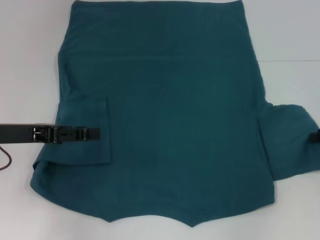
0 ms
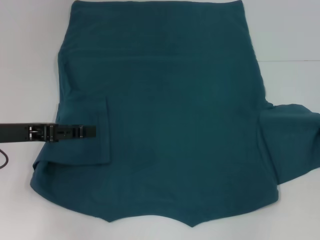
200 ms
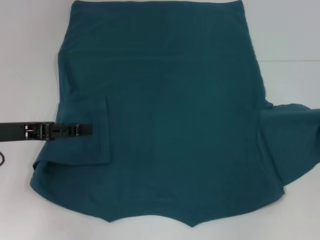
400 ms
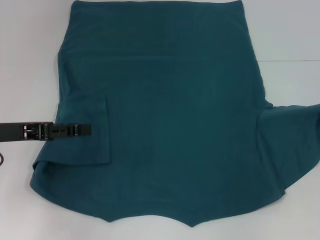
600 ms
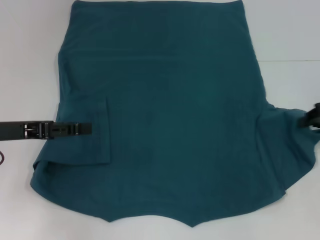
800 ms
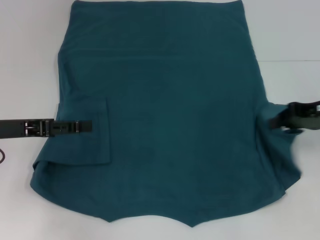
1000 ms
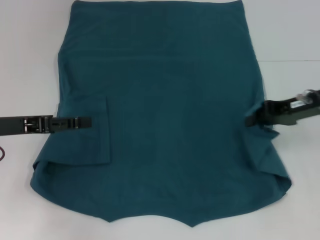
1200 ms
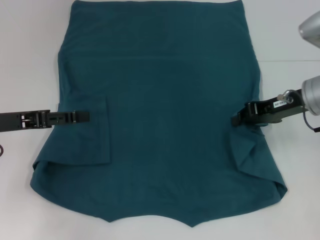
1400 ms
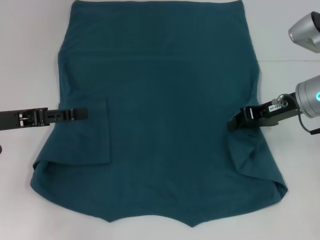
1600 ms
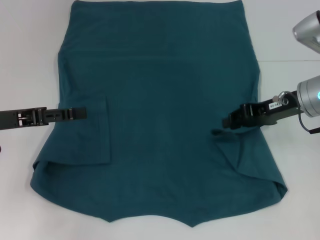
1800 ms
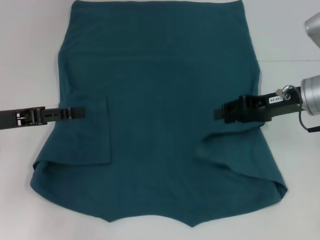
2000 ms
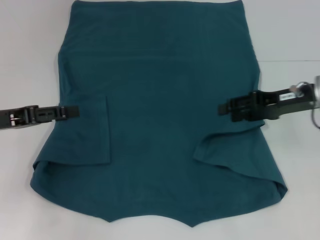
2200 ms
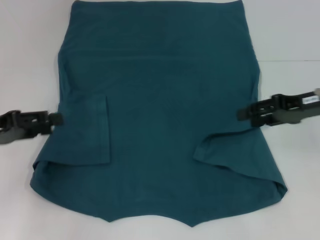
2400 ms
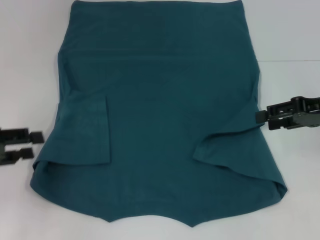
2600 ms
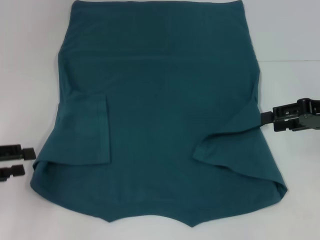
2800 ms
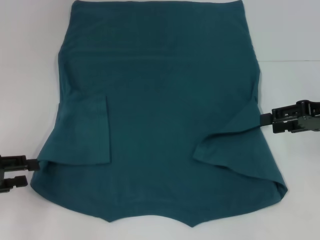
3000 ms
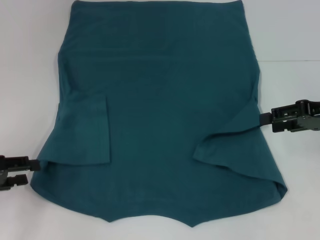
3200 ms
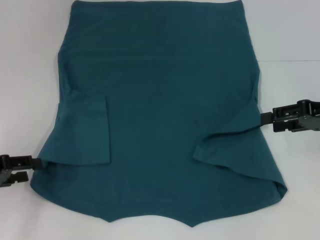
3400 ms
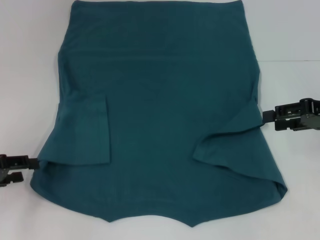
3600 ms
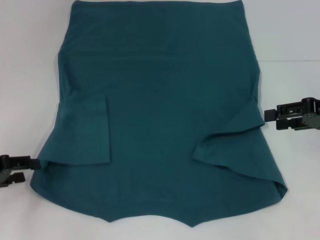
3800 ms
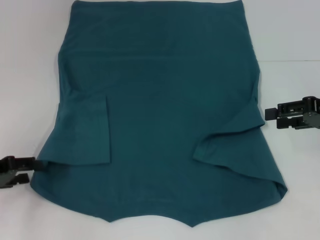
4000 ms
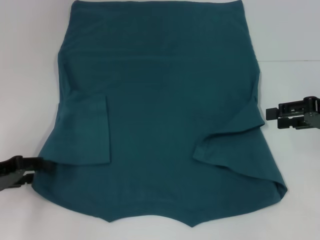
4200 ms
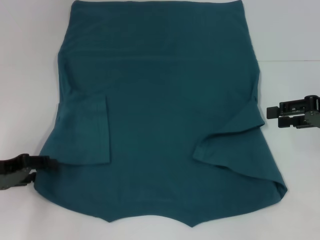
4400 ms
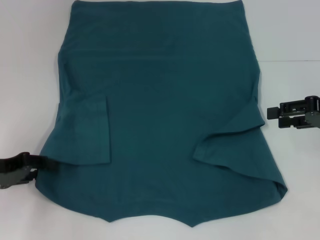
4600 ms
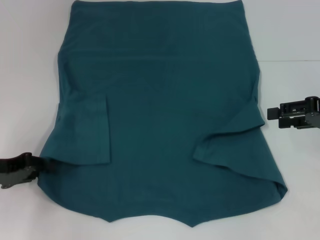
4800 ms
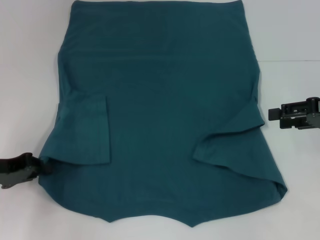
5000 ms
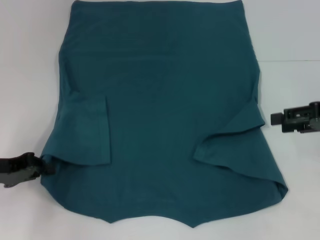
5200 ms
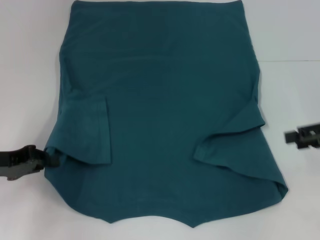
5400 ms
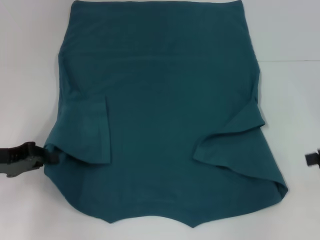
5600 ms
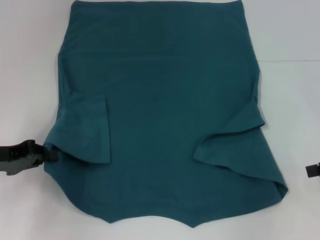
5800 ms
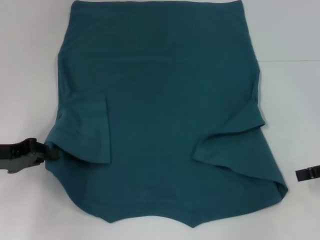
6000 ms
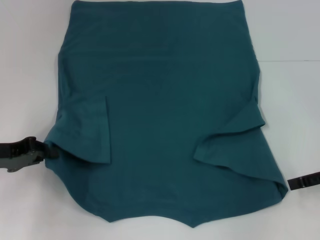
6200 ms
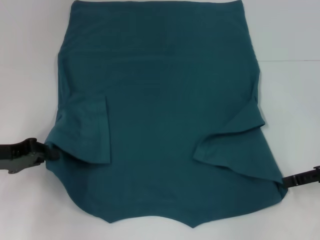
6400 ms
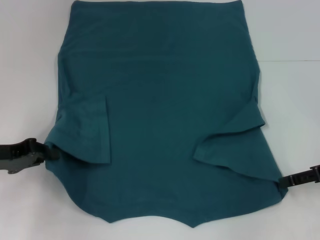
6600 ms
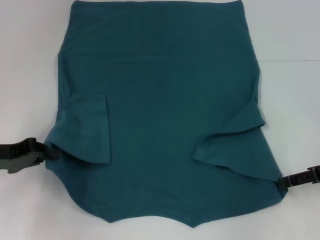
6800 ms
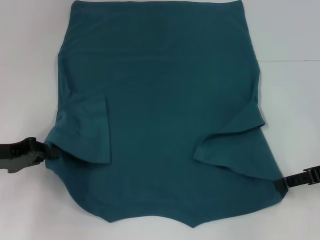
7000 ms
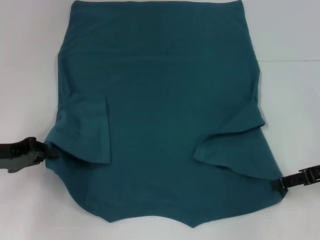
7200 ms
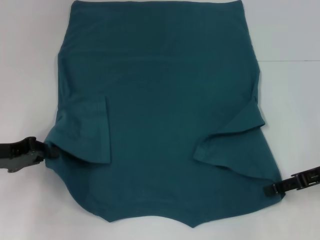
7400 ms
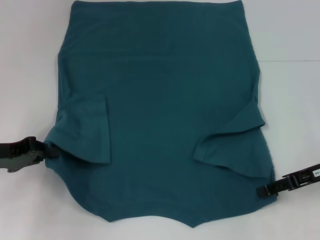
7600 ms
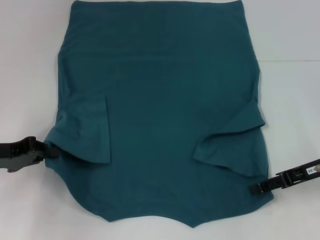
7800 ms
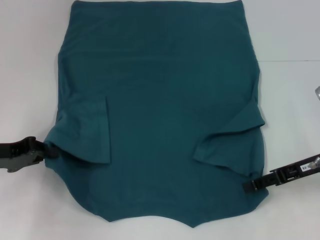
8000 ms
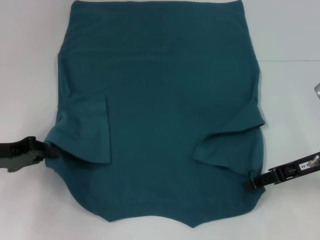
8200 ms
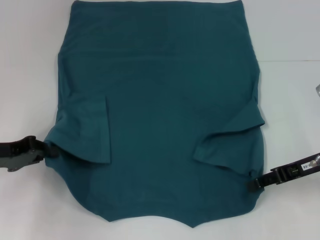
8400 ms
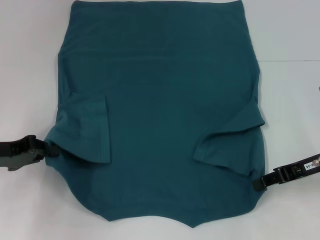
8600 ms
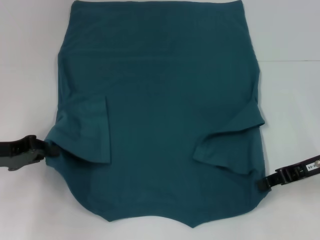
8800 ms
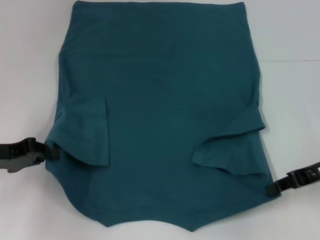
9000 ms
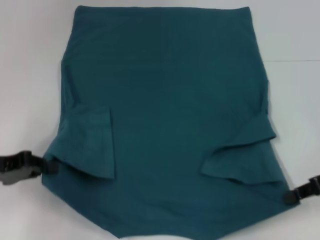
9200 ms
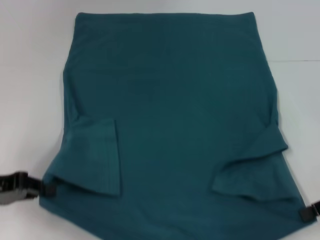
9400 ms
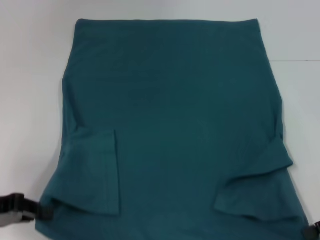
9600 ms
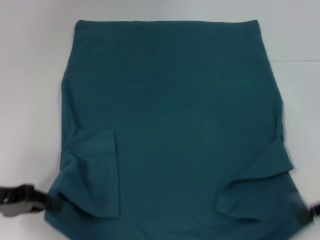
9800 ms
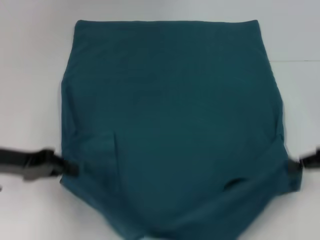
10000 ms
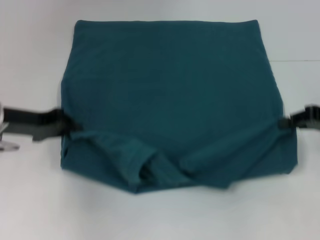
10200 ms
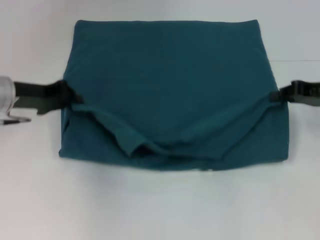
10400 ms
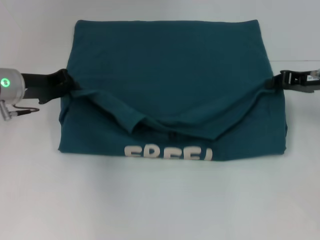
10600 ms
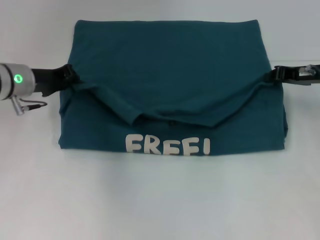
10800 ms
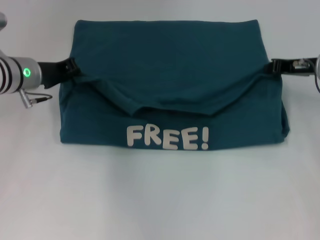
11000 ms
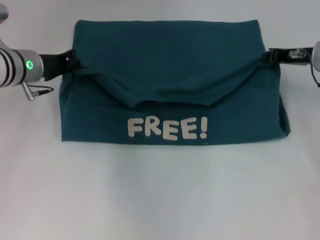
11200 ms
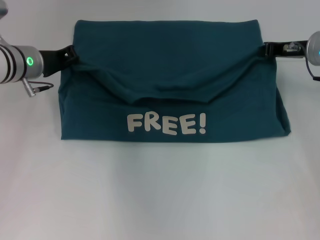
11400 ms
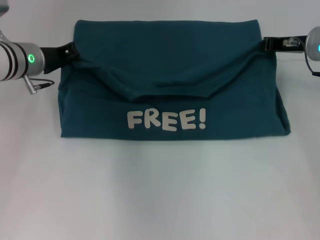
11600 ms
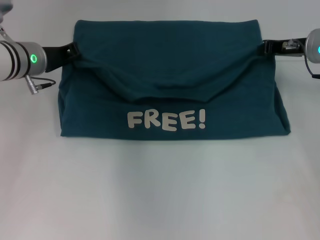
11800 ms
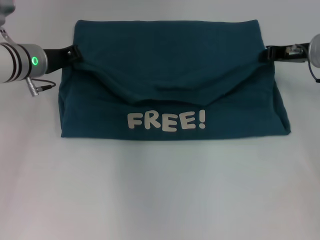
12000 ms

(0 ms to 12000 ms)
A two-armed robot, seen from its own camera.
Step, 0 ms - 2000 ms: Fold the bottom right sleeve to the right.
Step, 2200 ms - 5400 ms: Grab the bottom left corner with your left hand.
Step, 5600 ms - 8800 ms: Grab the bottom right corner with your right hand.
0 ms - 1600 ms: The right gripper travels to the left by about 15 cm.
1600 ms - 3000 ms: The right gripper travels to the right by about 10 cm, and opens, while the left gripper is displaced to the left and backward by some 10 cm.
3000 ms - 4400 ms: The left gripper moves approximately 5 cm.
4400 ms - 6000 ms: The right gripper shifts by about 5 cm. Meanwhile the left gripper closes.
6000 ms - 7600 ms: The right gripper moves to the left, about 5 cm.
7600 ms - 9000 ms: The right gripper closes up.
9000 ms - 10400 ms: The left gripper heads forward, covering some 10 cm, while the right gripper is displaced forward by roughly 5 cm.
10400 ms - 12000 ms: The right gripper is displaced forward and to the left by approximately 10 cm; the left gripper shifts some 5 cm forward.

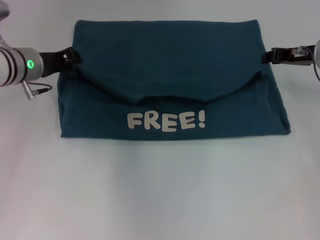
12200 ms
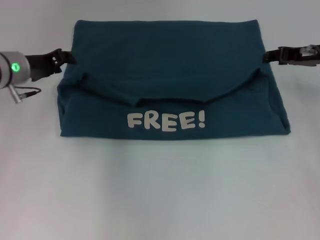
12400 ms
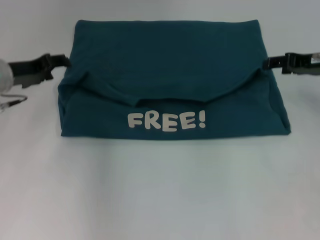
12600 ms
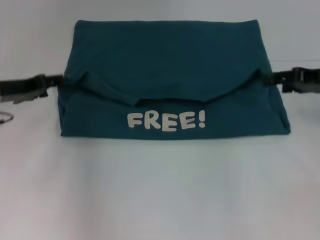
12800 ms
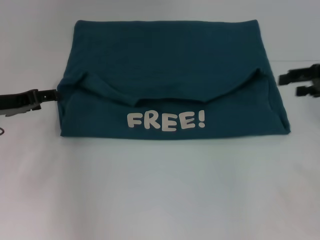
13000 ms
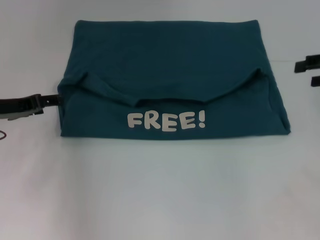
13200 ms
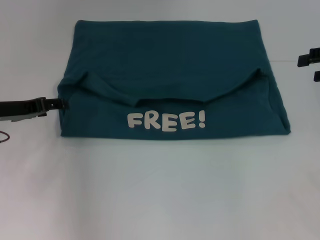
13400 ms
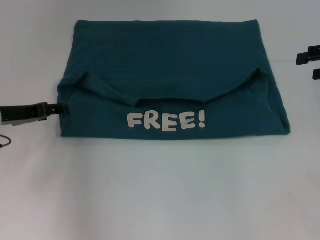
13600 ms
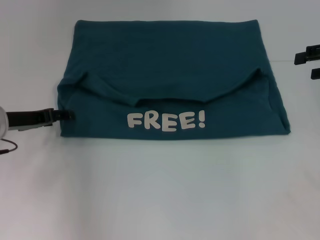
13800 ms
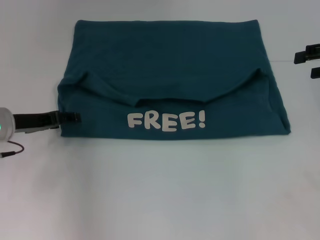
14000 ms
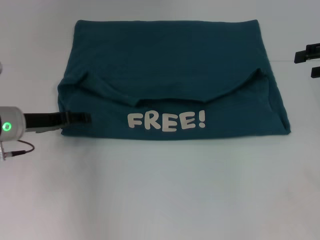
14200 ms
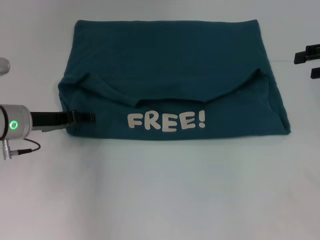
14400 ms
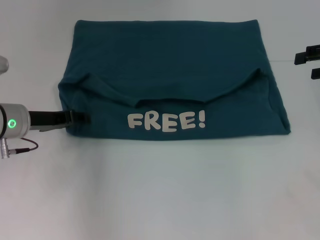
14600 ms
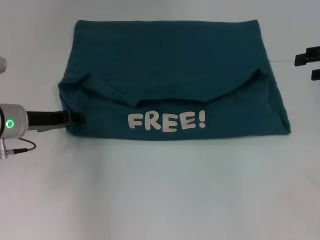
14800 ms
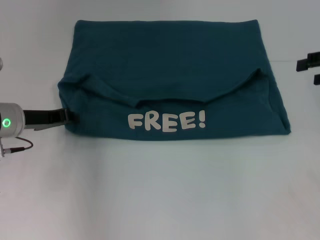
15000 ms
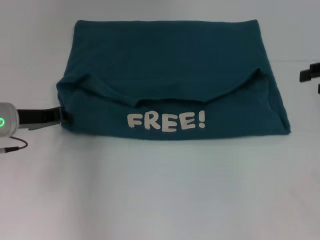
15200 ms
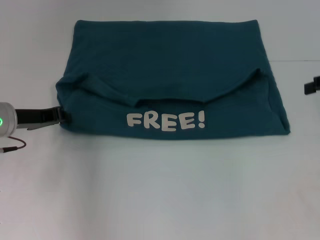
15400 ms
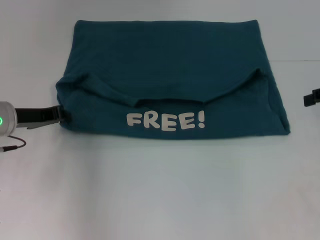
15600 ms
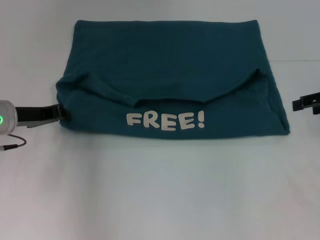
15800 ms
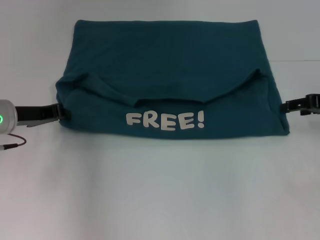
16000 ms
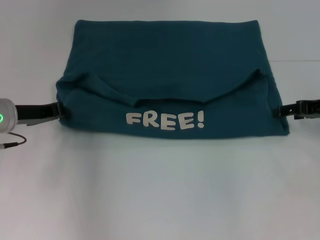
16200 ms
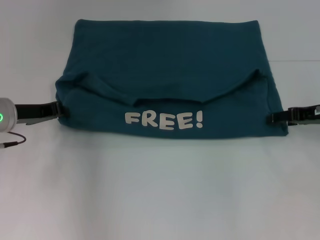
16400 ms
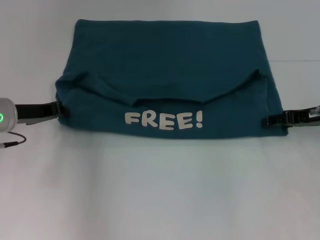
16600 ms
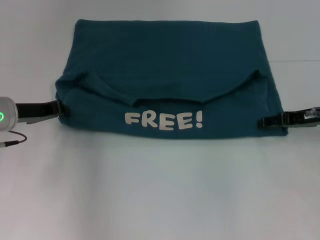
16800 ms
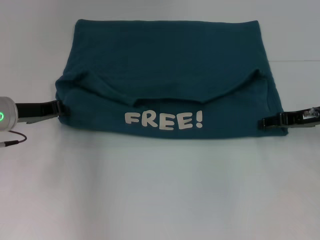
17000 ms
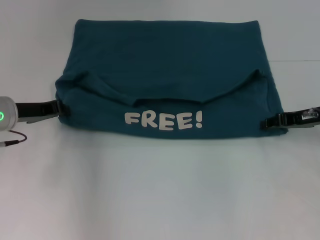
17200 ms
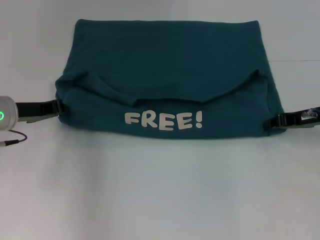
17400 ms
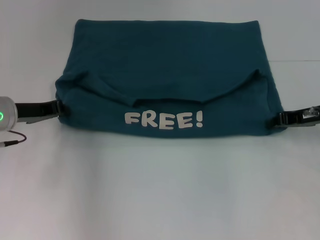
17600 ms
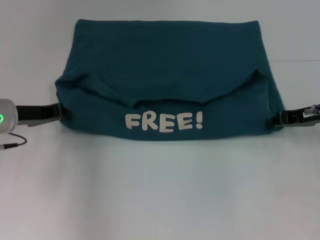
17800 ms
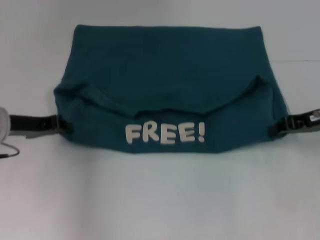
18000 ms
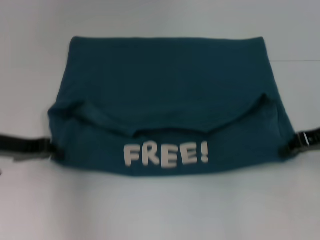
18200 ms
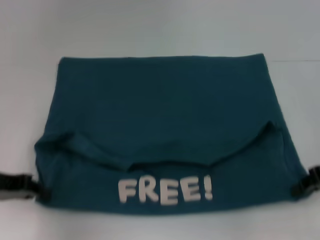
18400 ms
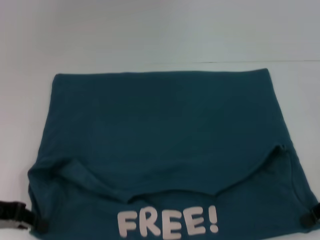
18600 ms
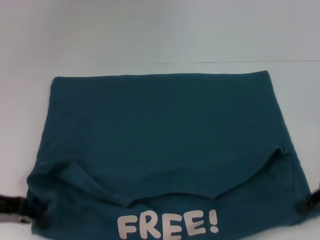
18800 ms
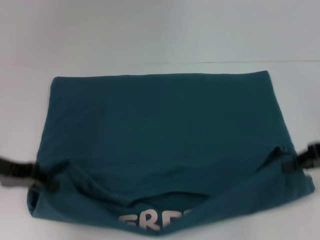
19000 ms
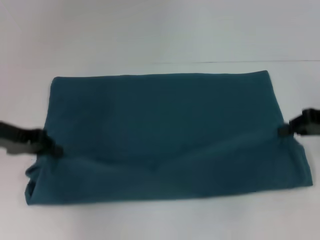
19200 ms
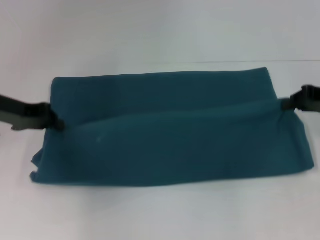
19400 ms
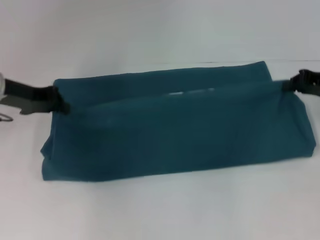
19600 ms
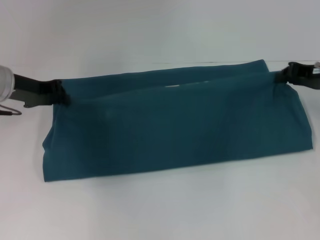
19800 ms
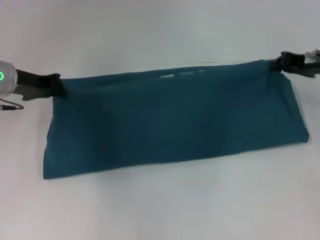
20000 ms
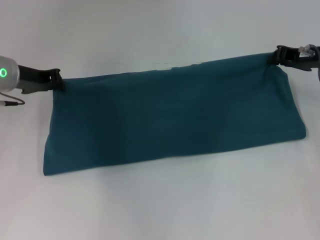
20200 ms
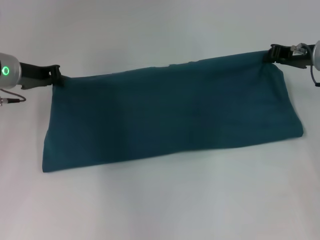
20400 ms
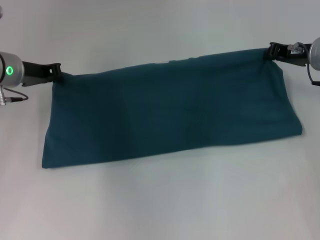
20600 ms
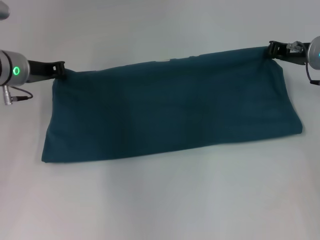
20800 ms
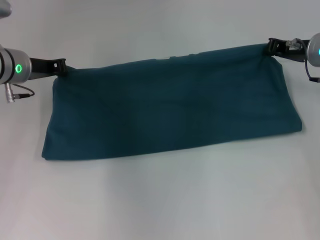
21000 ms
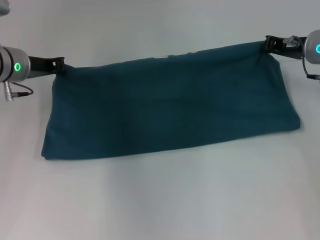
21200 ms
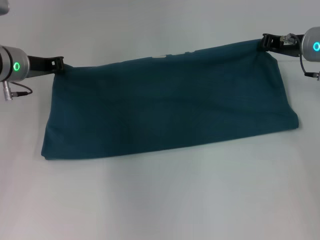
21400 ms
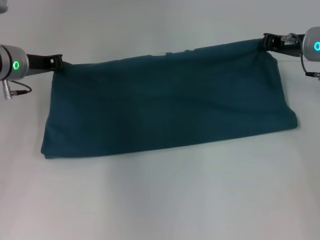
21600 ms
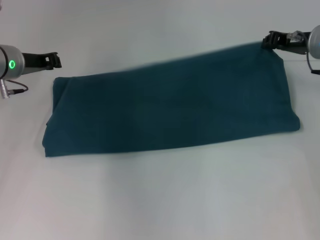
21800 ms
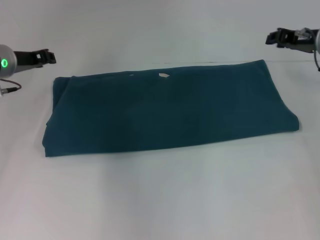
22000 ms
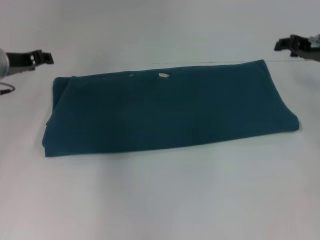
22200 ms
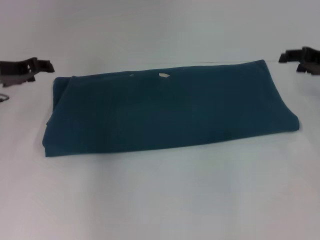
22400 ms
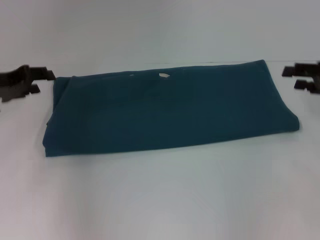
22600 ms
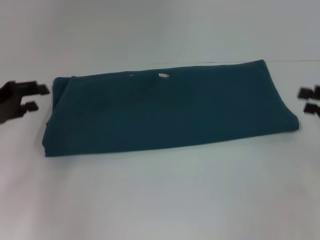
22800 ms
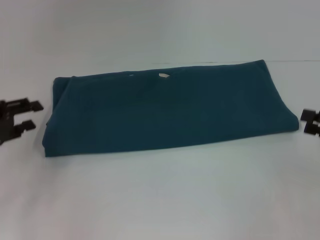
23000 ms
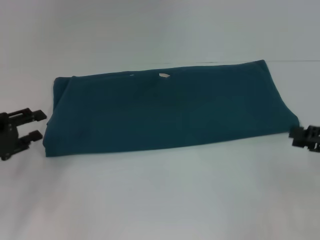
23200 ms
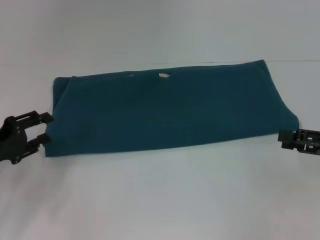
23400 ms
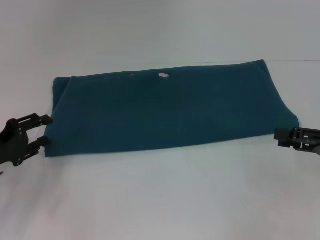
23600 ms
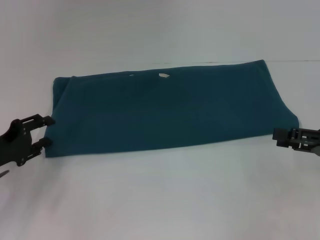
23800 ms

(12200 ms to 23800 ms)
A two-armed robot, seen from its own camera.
Step, 12600 ms - 18400 ms: Pull the clothes with your left hand.
Step, 12600 ms - 18400 ms: Pull the clothes with your right hand.
Step, 18600 ms - 22000 ms: Fold the clothes to the right.
12200 ms - 13600 ms: The right gripper heads to the right, upward and backward, covering some 10 cm, and opens, while the left gripper is displaced backward and to the left by some 10 cm, and opens up.
13600 ms - 15000 ms: The left gripper closes up.
15000 ms - 16600 ms: The left gripper closes up; the right gripper goes some 10 cm downward and to the left.
16600 ms - 18000 ms: The right gripper closes its fingers.
18000 ms - 19400 ms: The right gripper goes backward and returns, about 10 cm each way; the left gripper travels upward by some 5 cm, and travels backward and back again, some 10 cm each way.
19400 ms - 21000 ms: The left gripper heads forward, covering roughly 5 cm, while the right gripper travels forward and to the left by approximately 10 cm.
21000 ms - 22400 ms: The right gripper travels to the right by roughly 5 cm, and opens up; the left gripper shifts by approximately 5 cm, and opens up.
22400 ms - 23800 ms: The right gripper travels backward by some 15 cm. Meanwhile the left gripper goes about 15 cm backward and downward.
